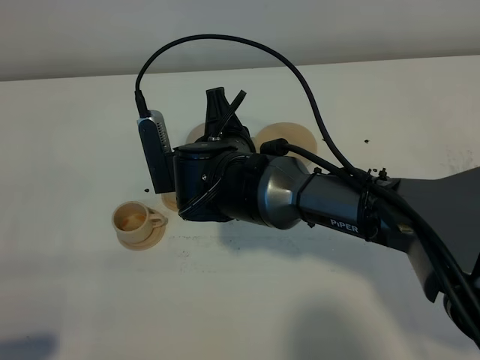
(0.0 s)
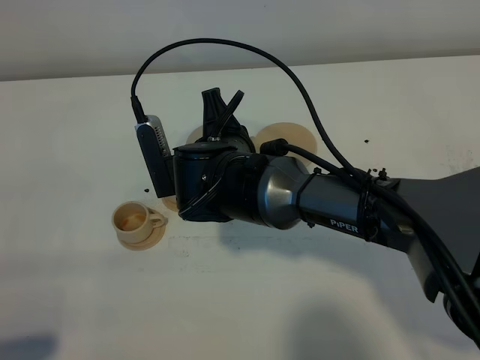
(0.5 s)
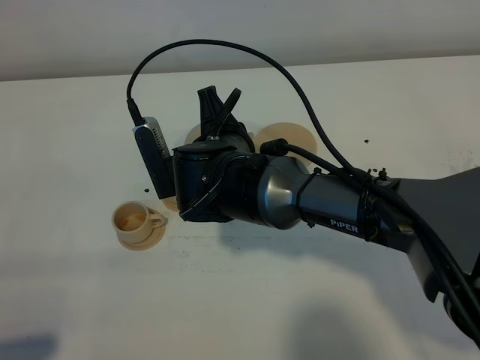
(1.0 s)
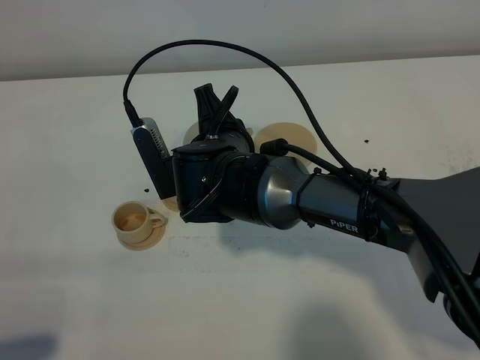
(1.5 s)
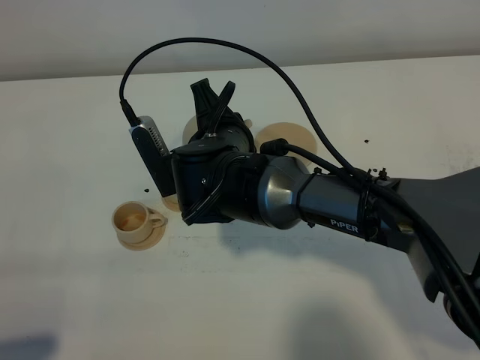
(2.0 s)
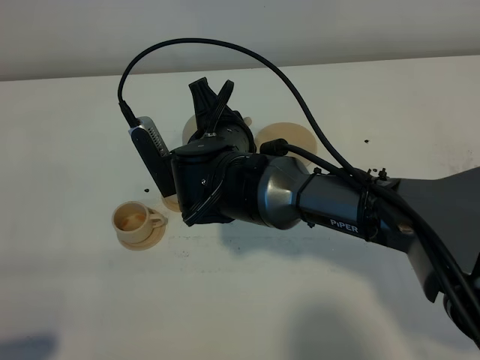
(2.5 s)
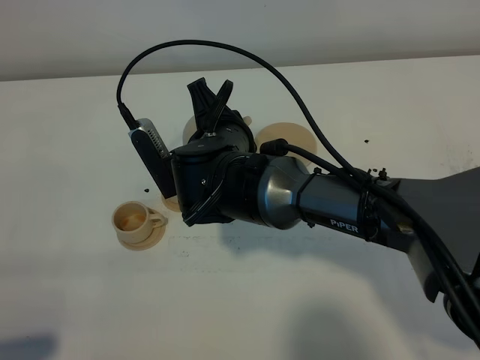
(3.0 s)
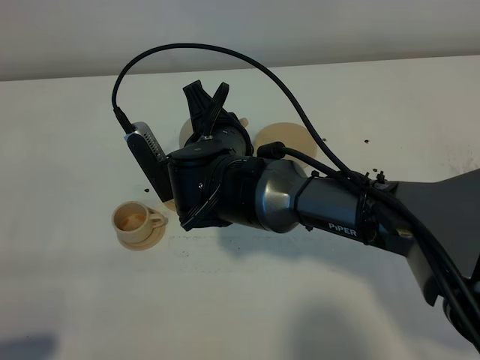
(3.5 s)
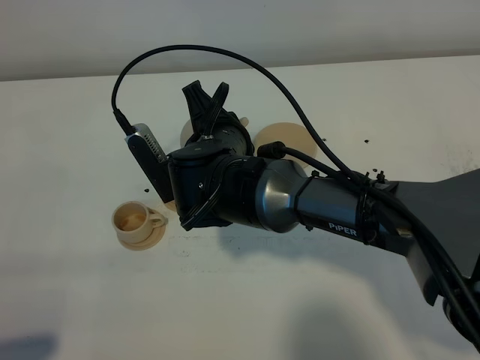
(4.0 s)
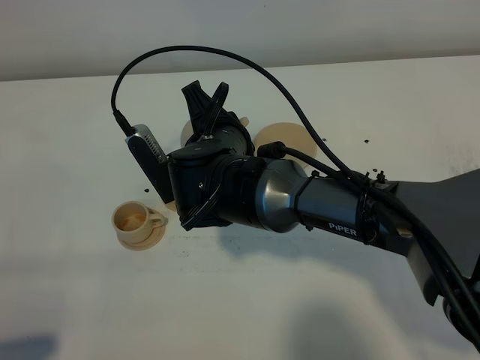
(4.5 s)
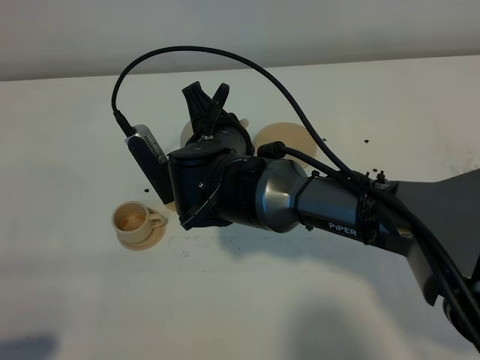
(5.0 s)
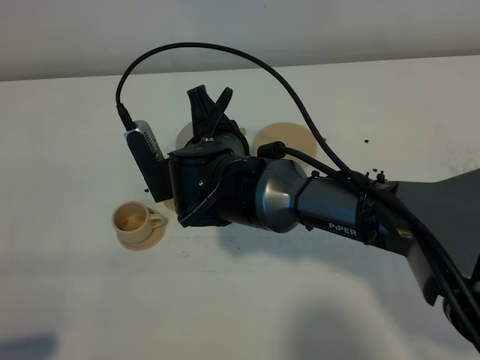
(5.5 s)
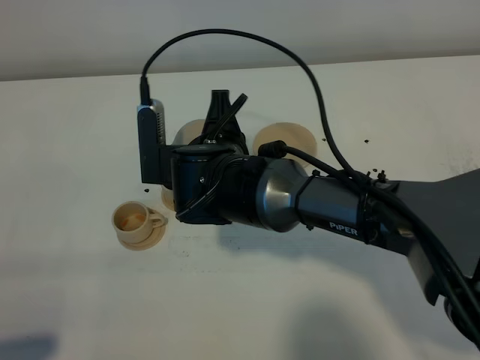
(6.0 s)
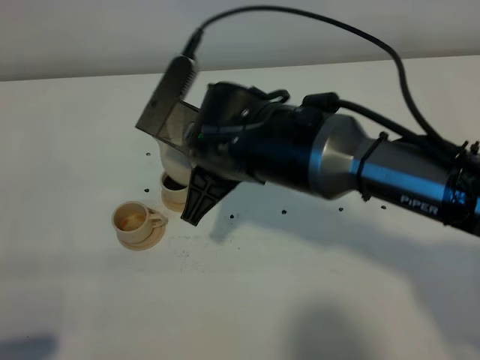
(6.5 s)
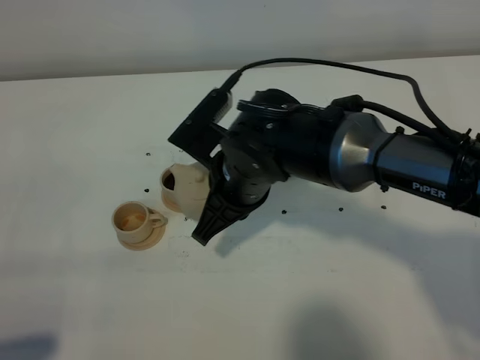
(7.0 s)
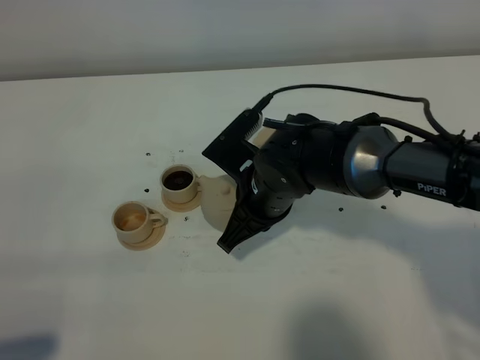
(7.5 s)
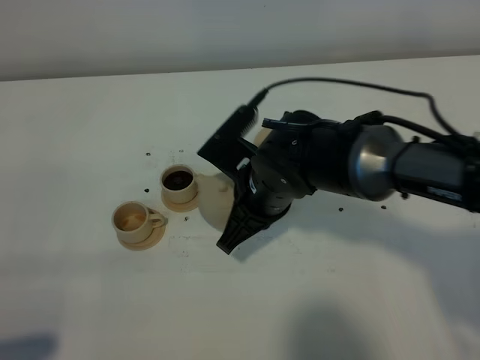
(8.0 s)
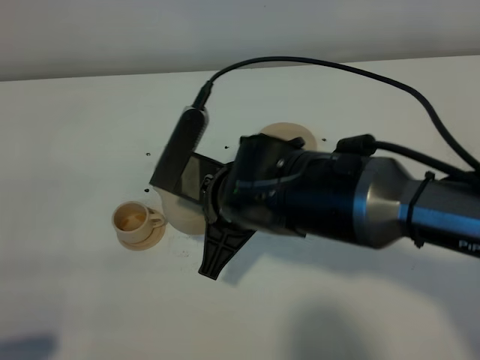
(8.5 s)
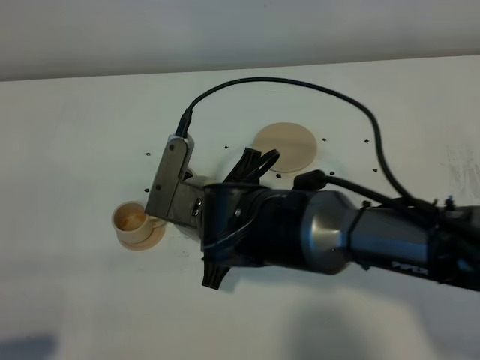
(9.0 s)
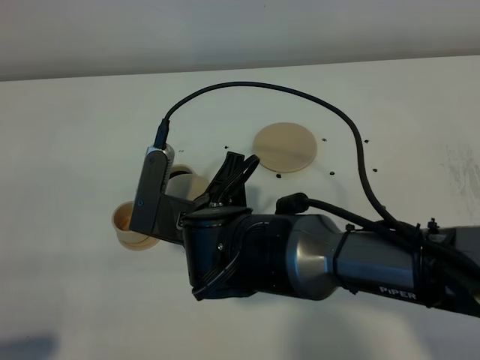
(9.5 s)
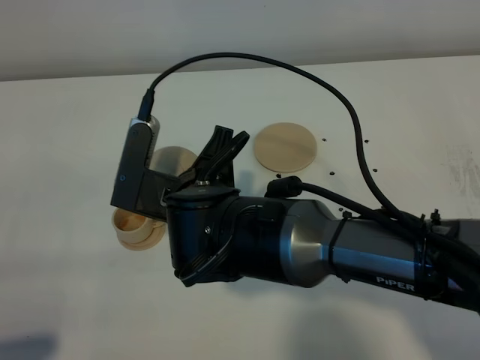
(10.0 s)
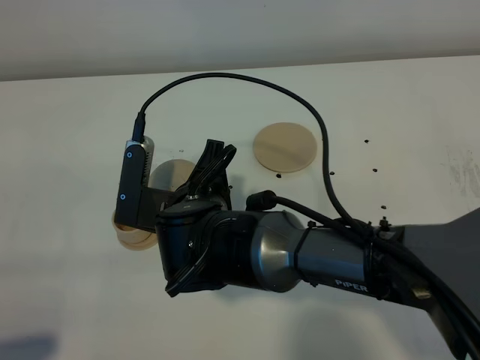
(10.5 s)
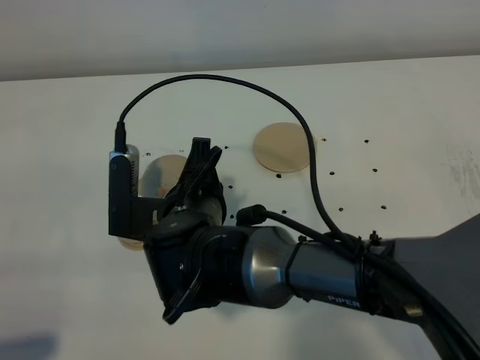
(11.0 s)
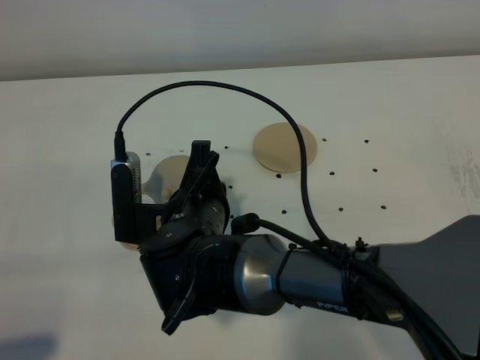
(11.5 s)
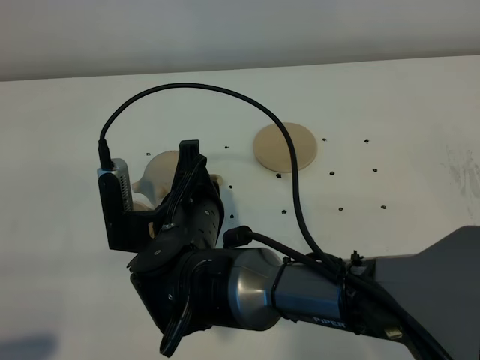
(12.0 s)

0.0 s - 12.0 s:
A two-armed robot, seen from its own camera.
Task of the whole recording: grasp the brown teapot and pour the tea into the two brown teacups one by one, put the brown teapot back in its original place.
0.0 s - 2.0 s: The grippers stay close to where they were, moving slightly.
2.0 s - 4.0 s: Both grippers stay about where they are.
6.0 s - 8.0 s: The right gripper goes roughly 5 cm to the right, and travels upward and back again, about 5 cm each way.
8.0 s - 10.0 s: The right gripper is displaced to the left by about 5 cm.

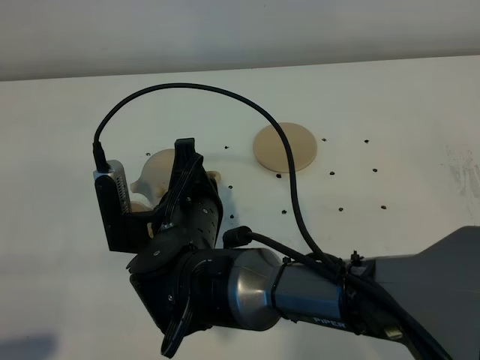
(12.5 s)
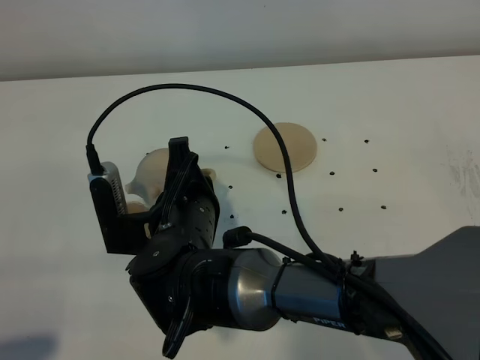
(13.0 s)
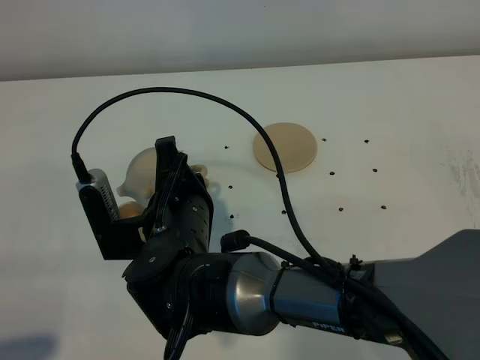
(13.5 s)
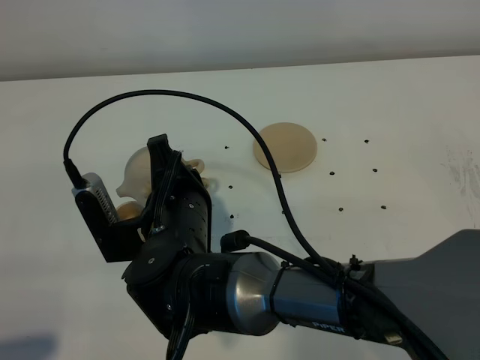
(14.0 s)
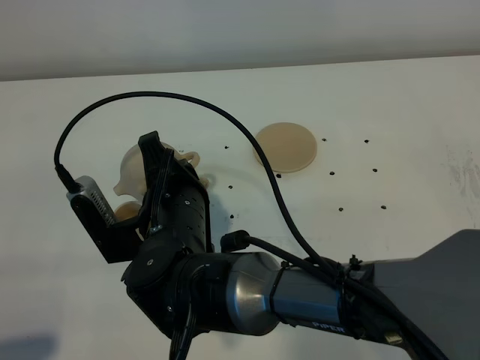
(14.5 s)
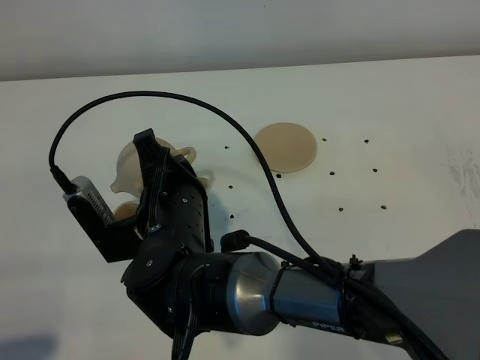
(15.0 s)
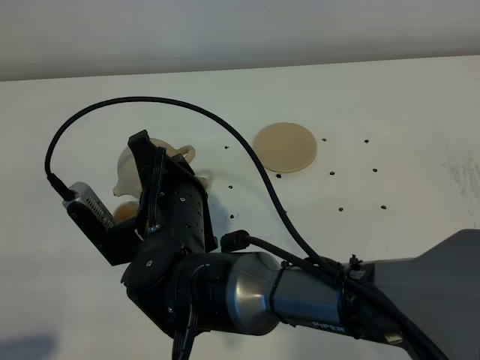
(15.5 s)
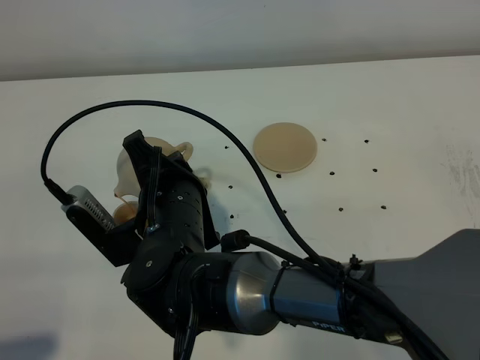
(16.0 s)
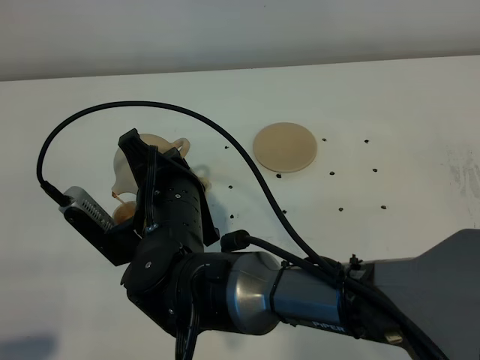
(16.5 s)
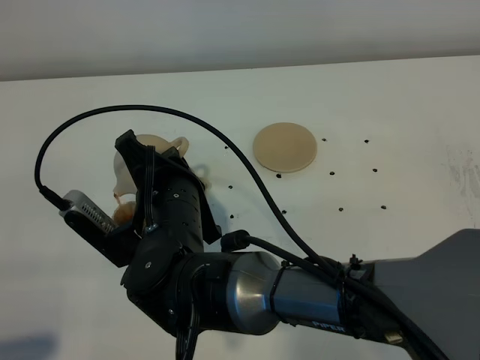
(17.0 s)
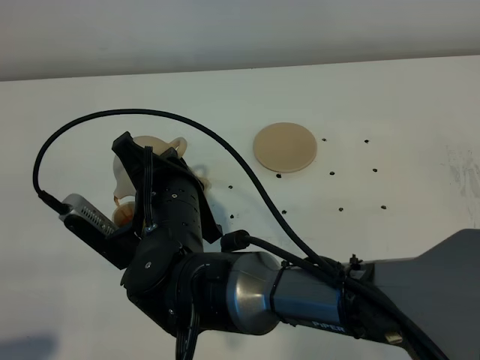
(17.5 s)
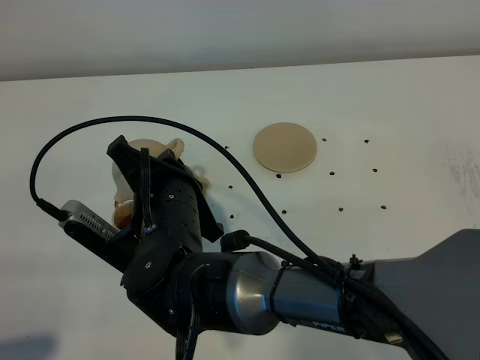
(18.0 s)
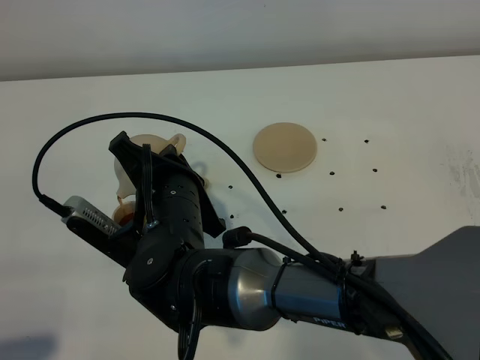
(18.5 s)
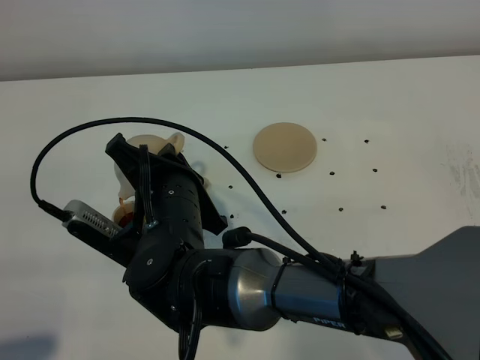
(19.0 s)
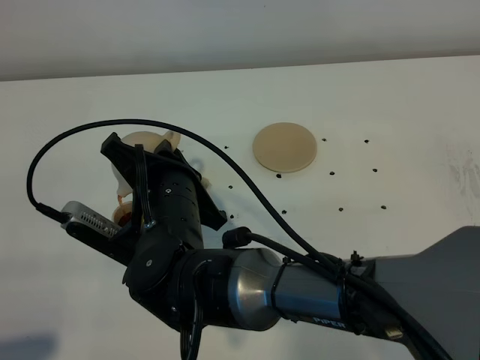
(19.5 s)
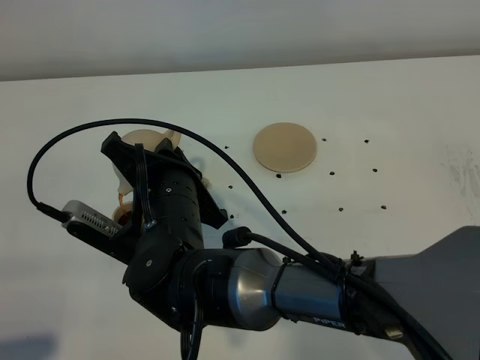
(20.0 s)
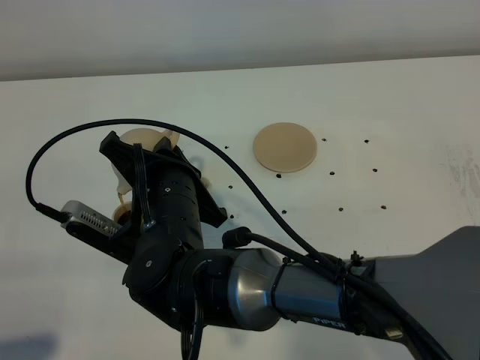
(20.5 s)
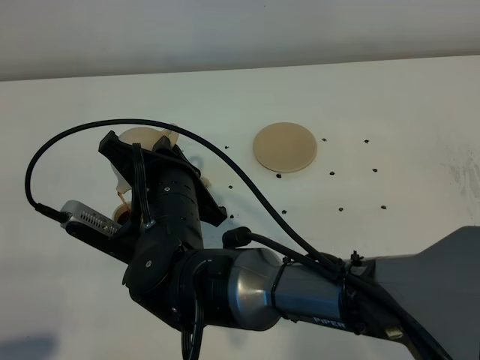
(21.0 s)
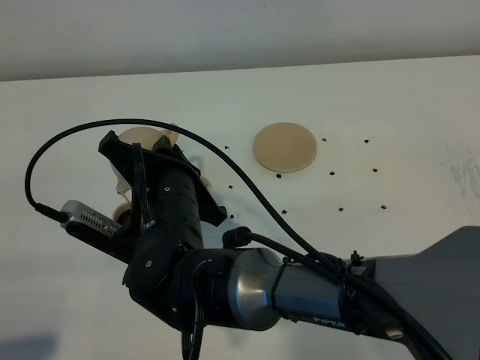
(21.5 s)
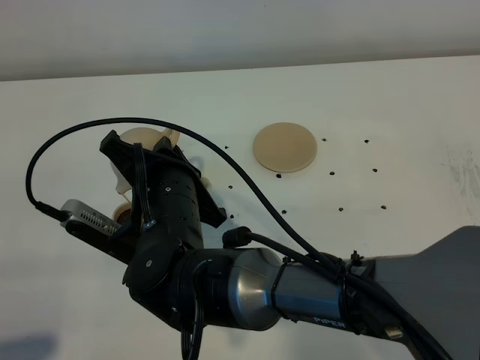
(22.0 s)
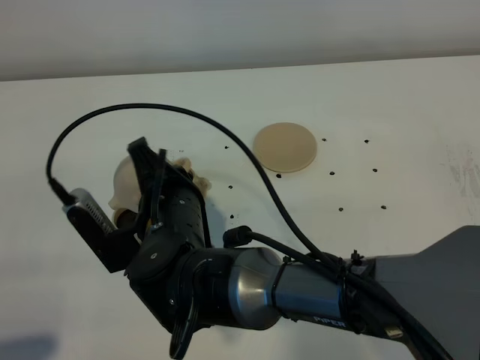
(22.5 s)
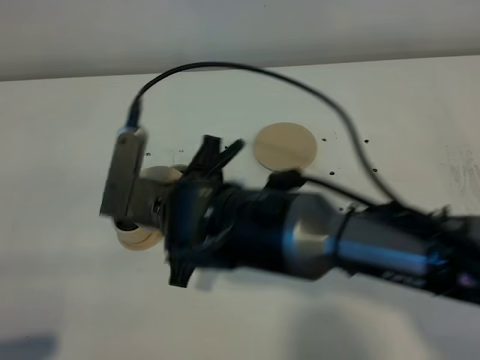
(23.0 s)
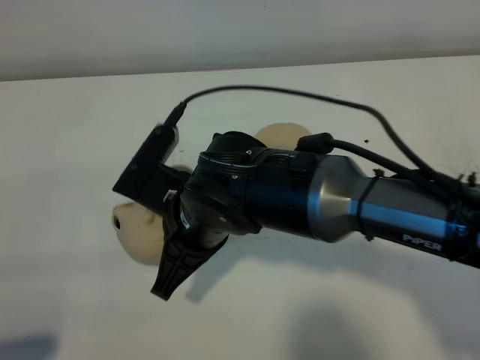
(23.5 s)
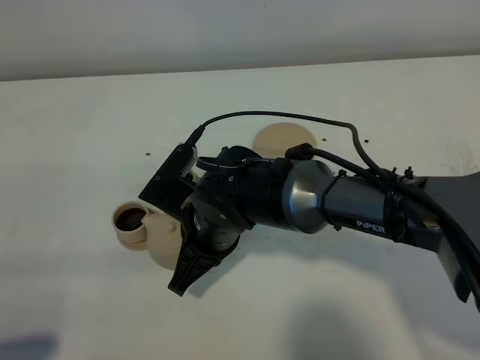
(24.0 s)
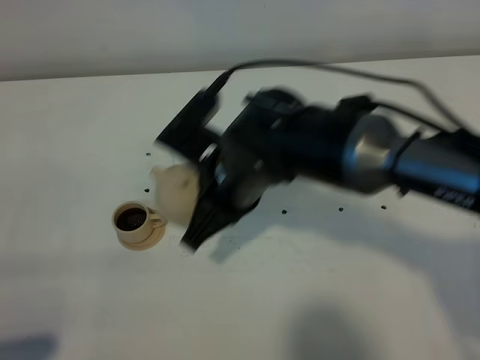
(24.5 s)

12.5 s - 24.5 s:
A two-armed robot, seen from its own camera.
Task of the whole recording: grasp the brown teapot and pour the tea into the two brown teacups one by one, put the brown teapot back in its original place.
Step, 12.5 s - 22.5 s: Pour tea into the teacup with the right gripper.
12.5 s - 14.5 s: There are only small adjustments of the grippers.
14.5 s - 16.5 s: The grippers make only small movements.
16.5 s - 20.5 s: There are only small adjustments of the grippers.
22.5 s - 24.5 s: The right gripper is displaced to the right by some 10 cm.

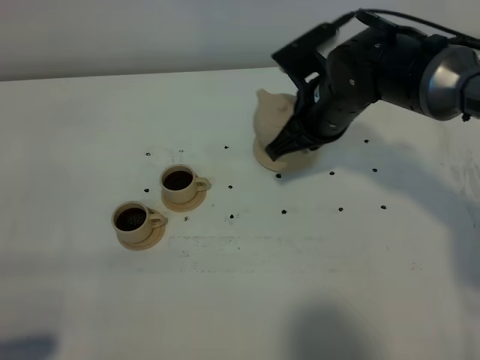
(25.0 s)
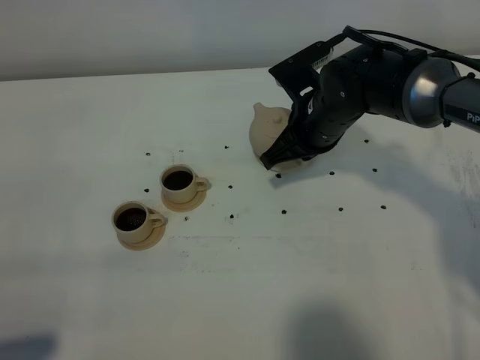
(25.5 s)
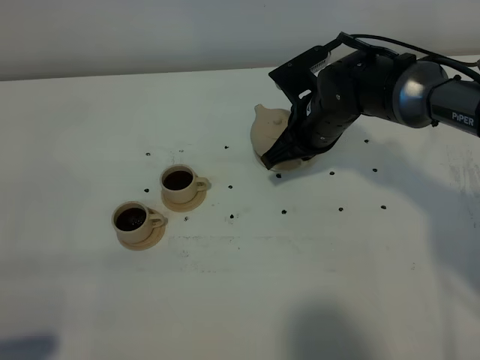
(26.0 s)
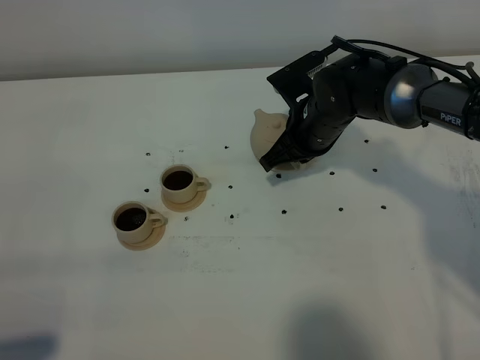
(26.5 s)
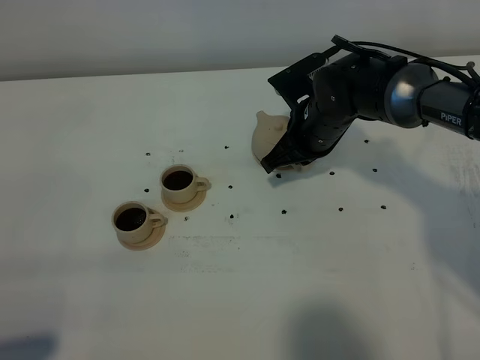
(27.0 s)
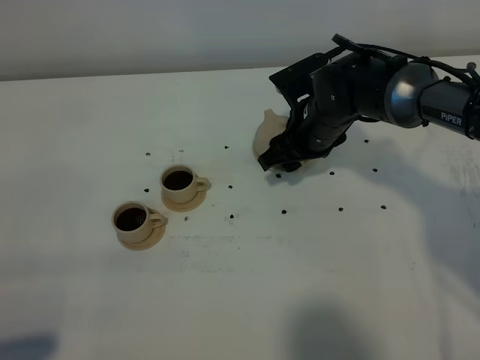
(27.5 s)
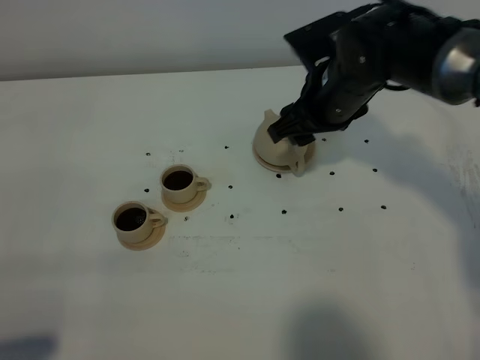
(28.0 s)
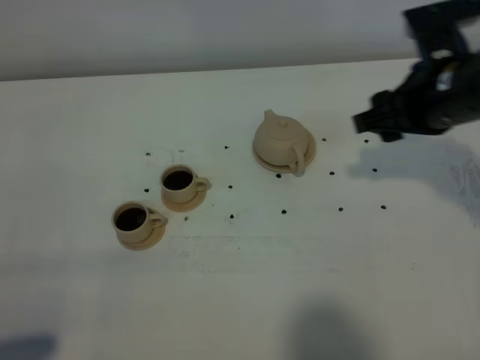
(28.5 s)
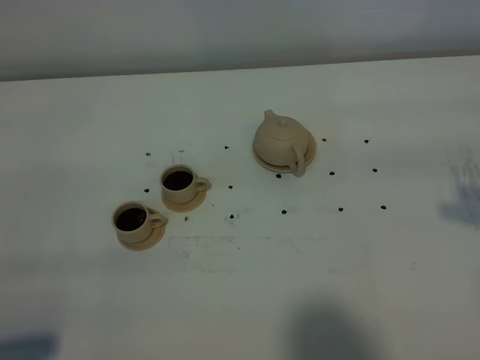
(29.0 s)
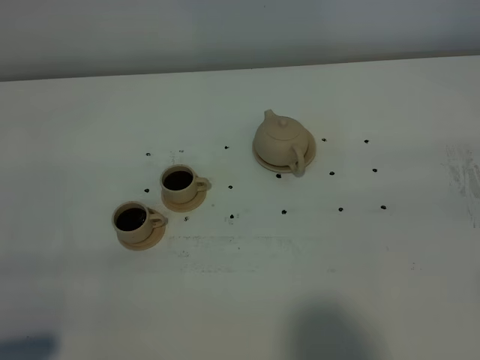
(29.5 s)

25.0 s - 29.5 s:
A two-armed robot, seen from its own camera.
Task of the whole recording: grasp the brown teapot and pour the tea into the two brown teacups one by one, put the brown teapot back in its original place.
25.0 s - 27.0 s: The right gripper moves downward, some 5 cm.
27.0 s - 29.5 s: The right gripper travels backward, to the right and upward by about 40 cm, and opens its fingers.
